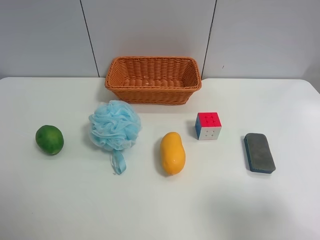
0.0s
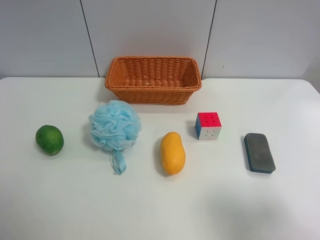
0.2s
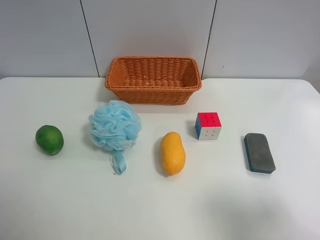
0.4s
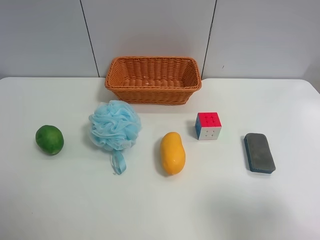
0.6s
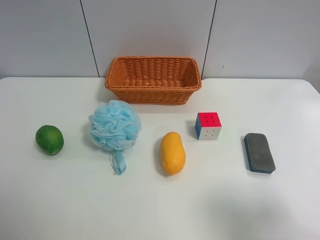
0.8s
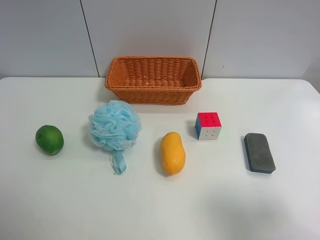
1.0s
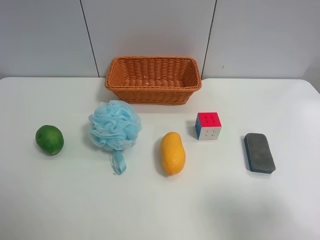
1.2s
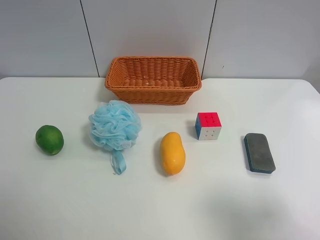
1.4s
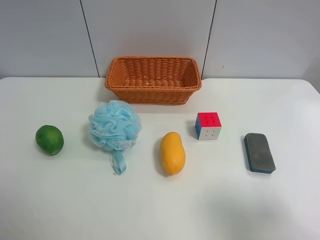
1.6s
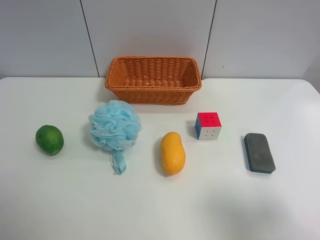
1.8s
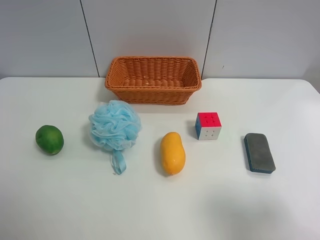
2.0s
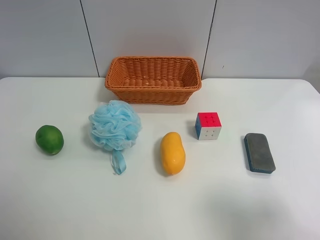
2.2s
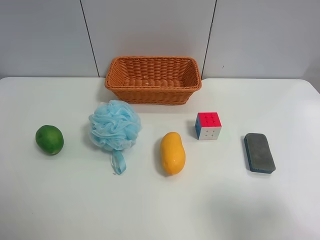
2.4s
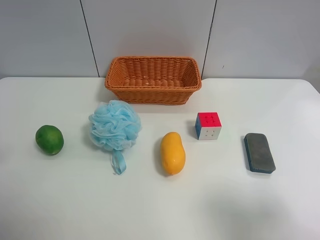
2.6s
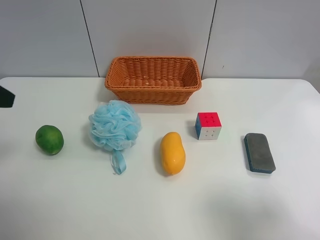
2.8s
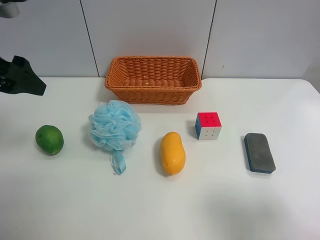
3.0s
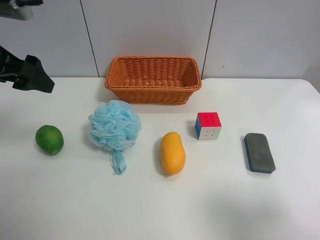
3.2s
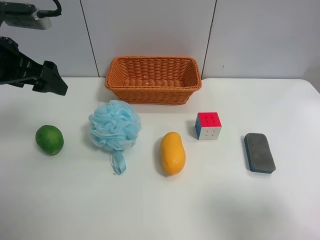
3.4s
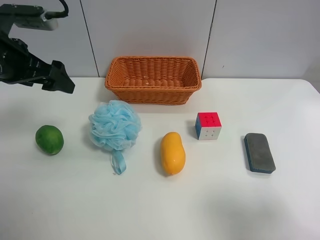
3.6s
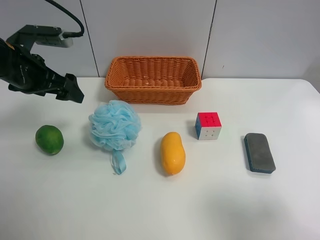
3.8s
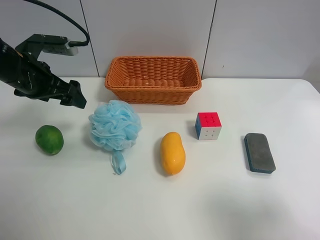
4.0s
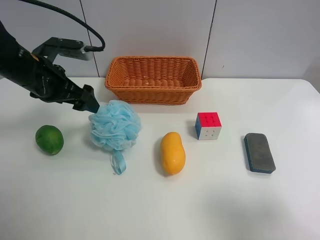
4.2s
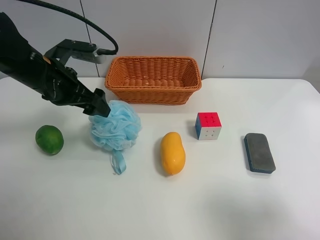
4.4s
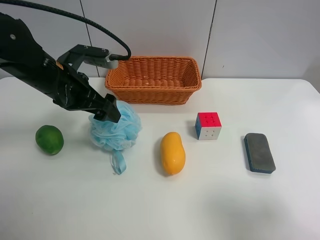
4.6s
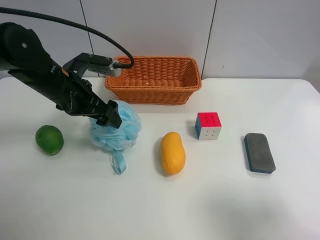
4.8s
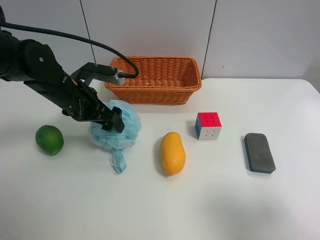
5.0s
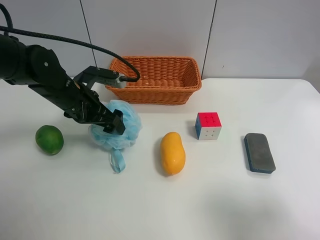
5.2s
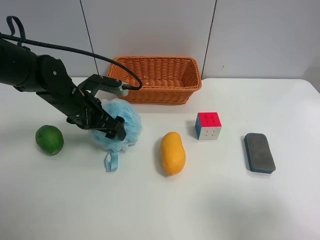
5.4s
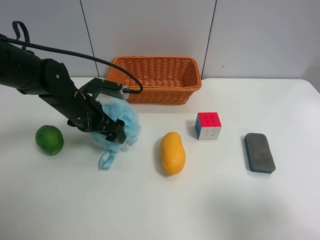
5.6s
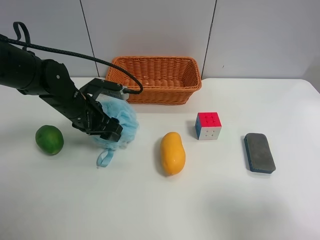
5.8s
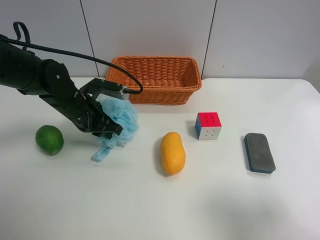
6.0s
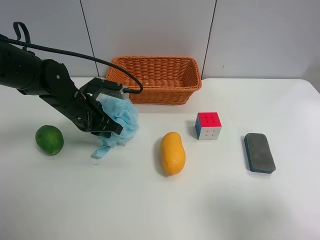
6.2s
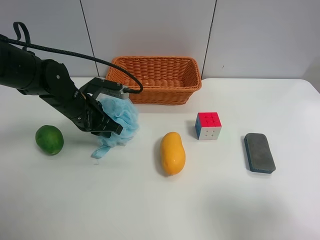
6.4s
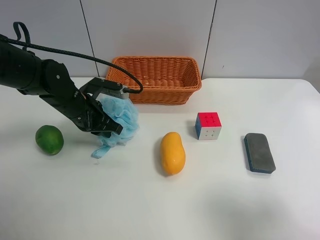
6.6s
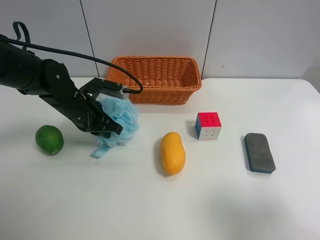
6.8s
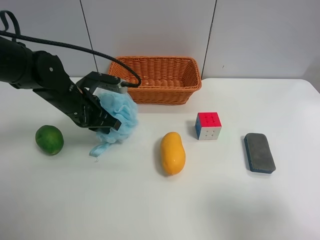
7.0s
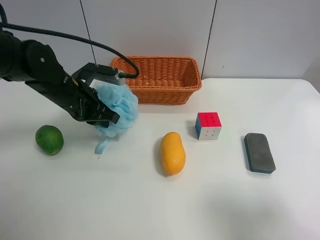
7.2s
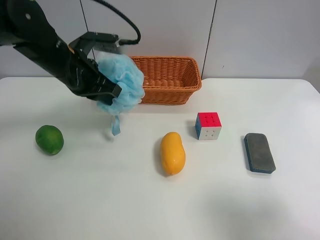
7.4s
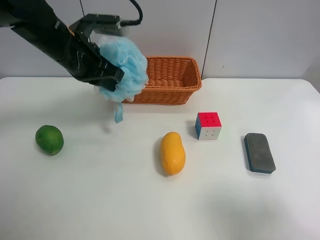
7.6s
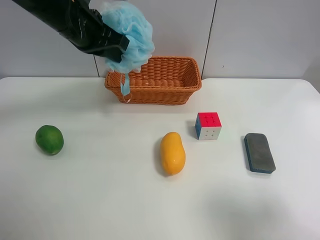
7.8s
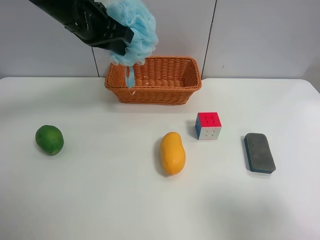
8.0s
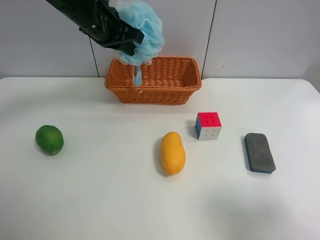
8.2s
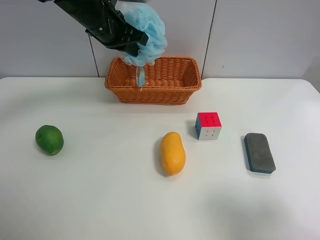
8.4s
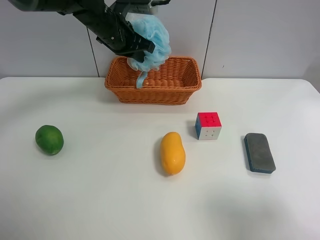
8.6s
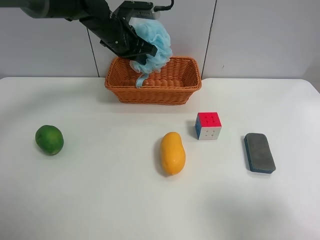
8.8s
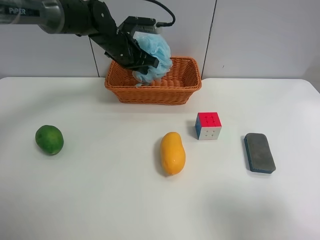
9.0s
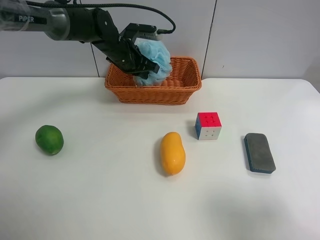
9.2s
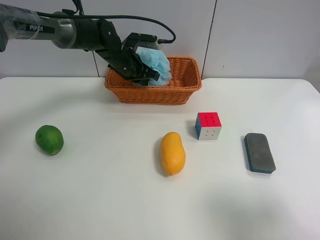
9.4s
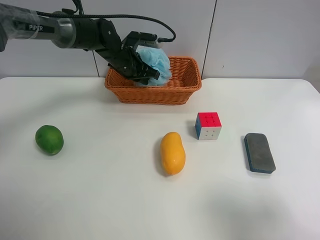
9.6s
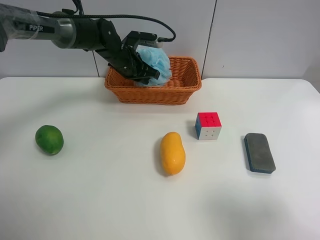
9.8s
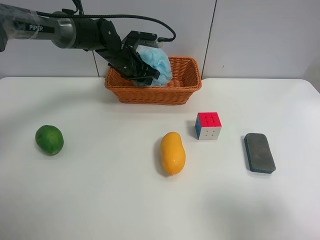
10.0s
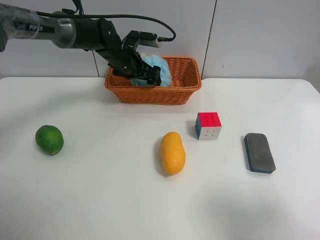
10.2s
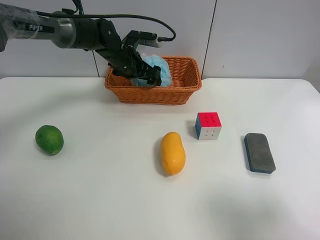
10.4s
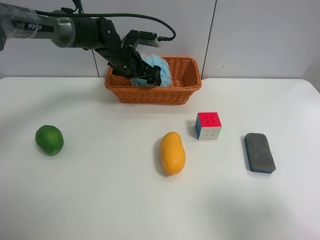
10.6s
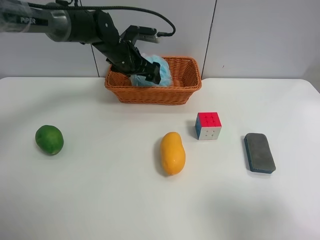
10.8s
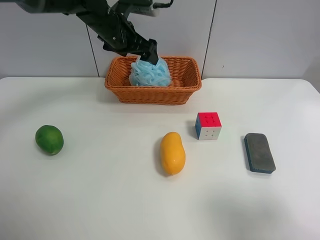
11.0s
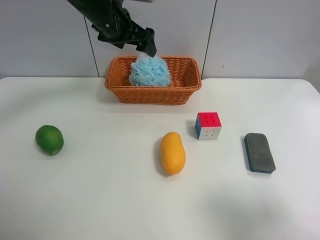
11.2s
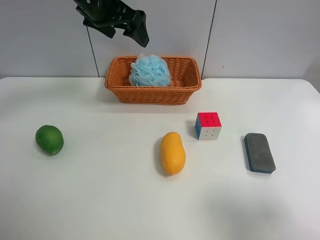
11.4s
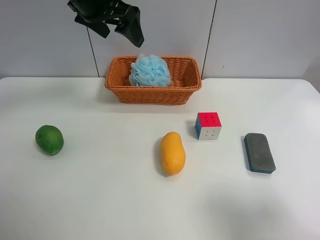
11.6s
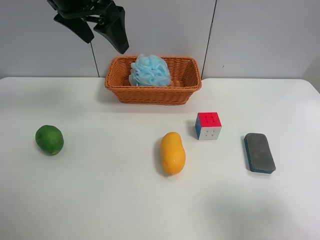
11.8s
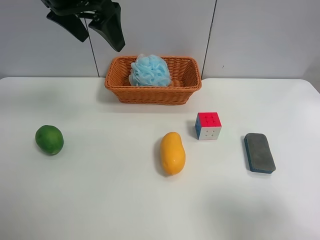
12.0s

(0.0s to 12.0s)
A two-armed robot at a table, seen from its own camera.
Task of the whole recording: use the left gripper to grab items from the table and place them in the basket.
Step, 0.0s - 5.6s: Grasp the Shower puff with the left gripper.
Step, 5.8s - 10.2s: Place the Shower puff into the basket with the left gripper.
0.0s - 1.6s: Neither gripper changes place.
1.6s - 3.0s: The left gripper goes about 25 cm forward.
3.0s - 4.4s: The left gripper goes about 15 cm downward, to the right and forward.
4.4s - 6.0s: The left gripper travels downward by some 10 cm, and closes.
6.0s - 7.6s: The left gripper heads upward, covering roughly 15 cm.
7.6s - 9.0s: The left gripper goes approximately 15 cm forward, downward and to the right.
9.0s - 10.4s: The left gripper opens up.
10.4s - 12.0s: The left gripper travels upward and backward by about 25 cm.

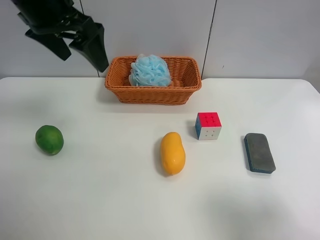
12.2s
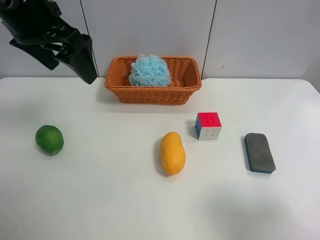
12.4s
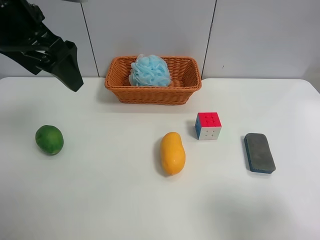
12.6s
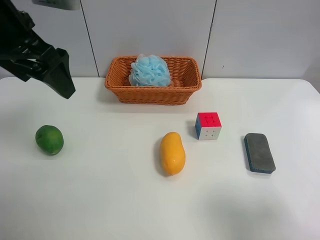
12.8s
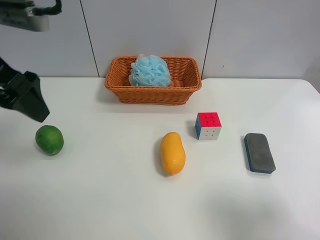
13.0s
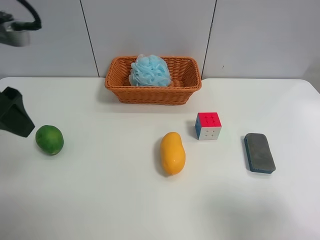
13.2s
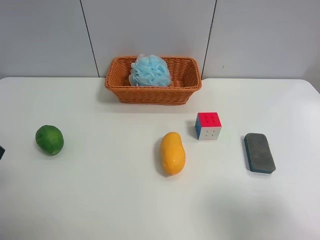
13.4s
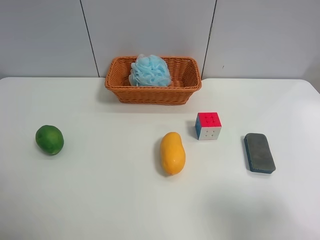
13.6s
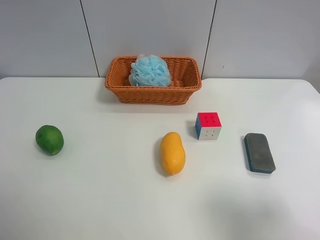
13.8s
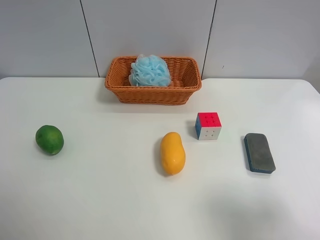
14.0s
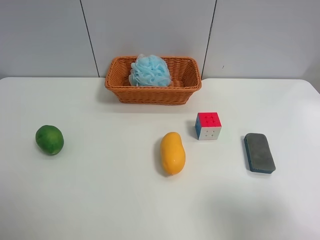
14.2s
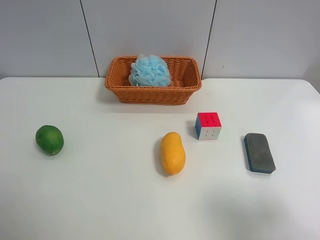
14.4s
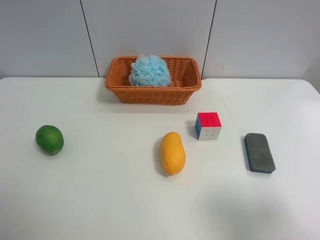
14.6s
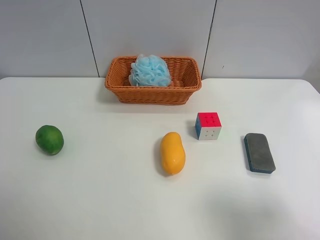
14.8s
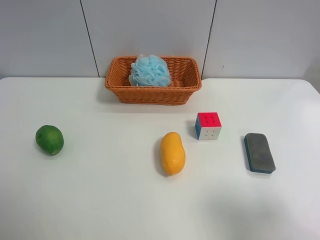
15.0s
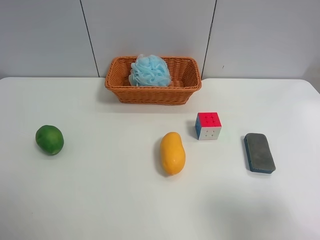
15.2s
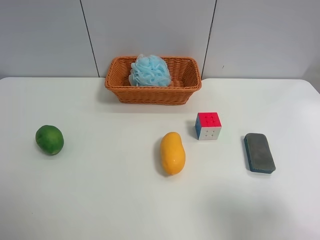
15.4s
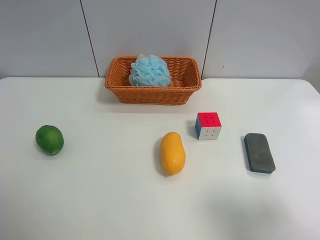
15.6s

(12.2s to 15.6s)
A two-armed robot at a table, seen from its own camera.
Task of the whole recording: use the left gripper to grab items from the table and place them in the basket.
12.2s - 13.8s: The left gripper travels backward and to the left by roughly 30 cm.

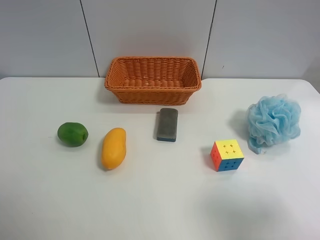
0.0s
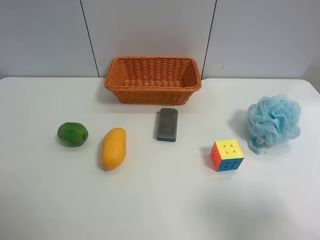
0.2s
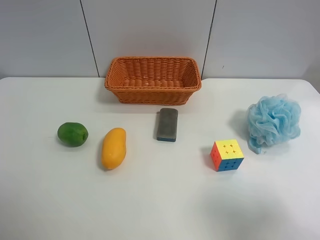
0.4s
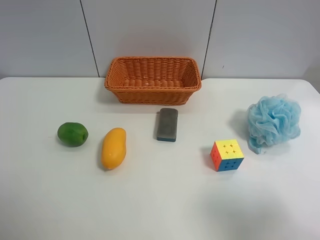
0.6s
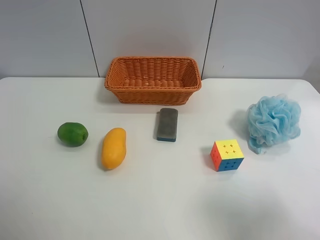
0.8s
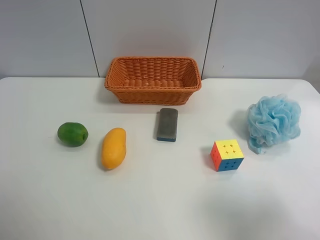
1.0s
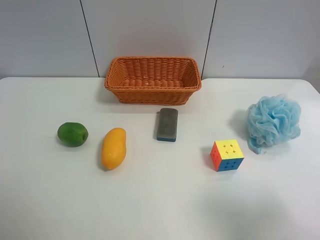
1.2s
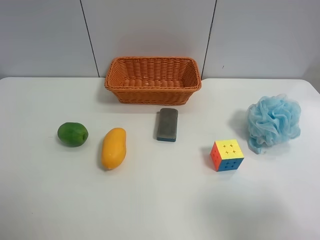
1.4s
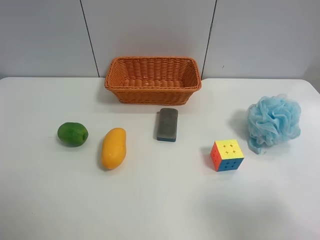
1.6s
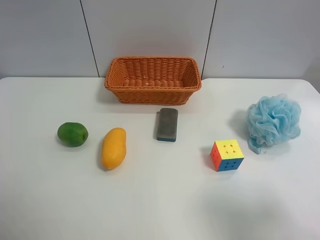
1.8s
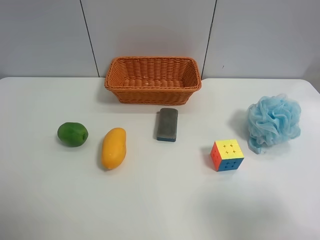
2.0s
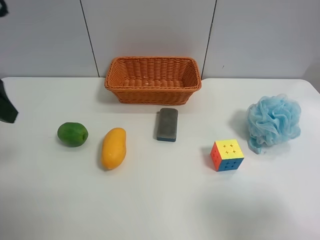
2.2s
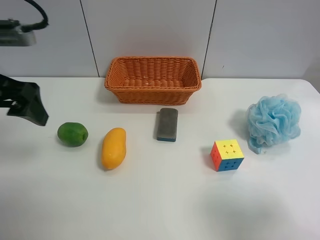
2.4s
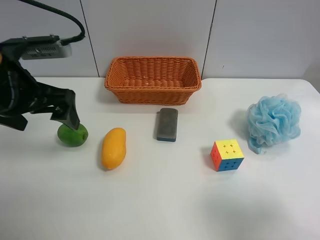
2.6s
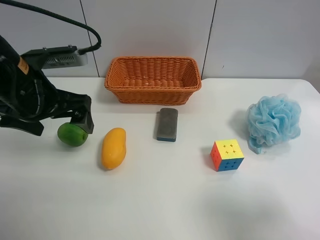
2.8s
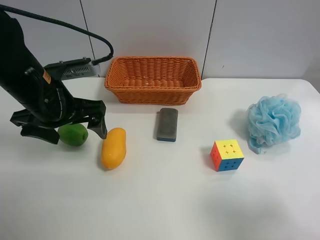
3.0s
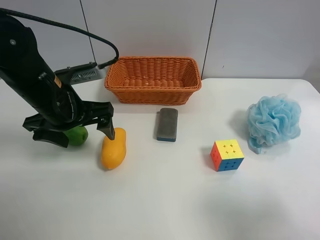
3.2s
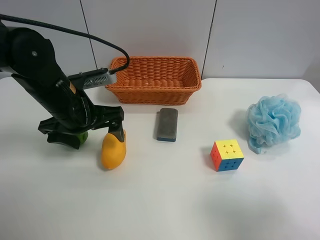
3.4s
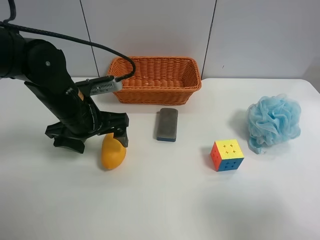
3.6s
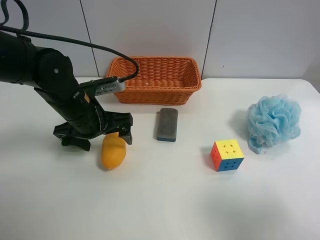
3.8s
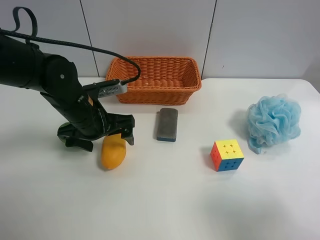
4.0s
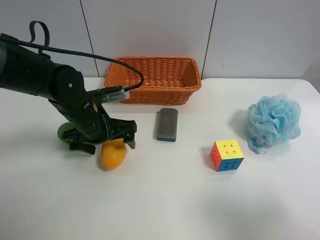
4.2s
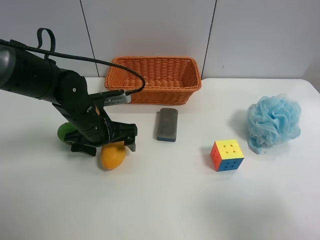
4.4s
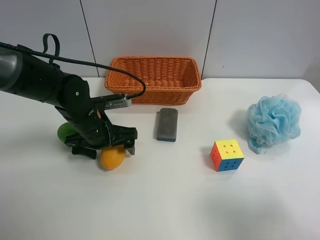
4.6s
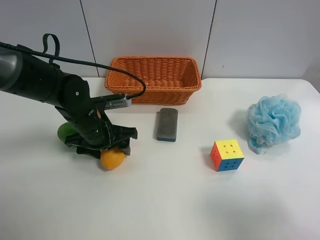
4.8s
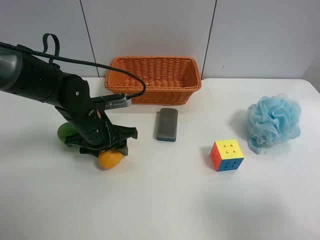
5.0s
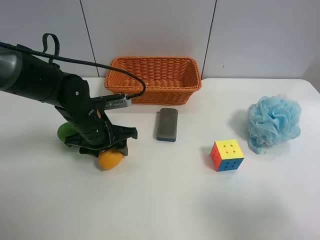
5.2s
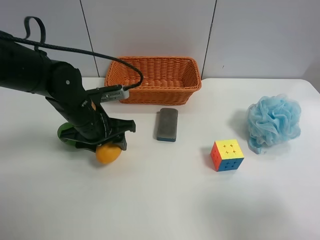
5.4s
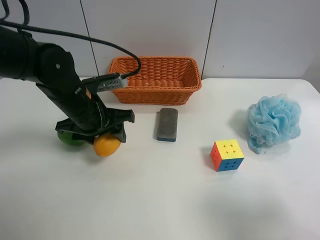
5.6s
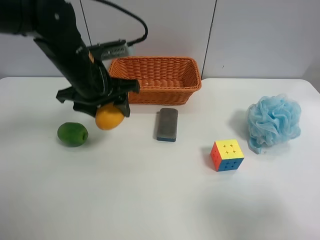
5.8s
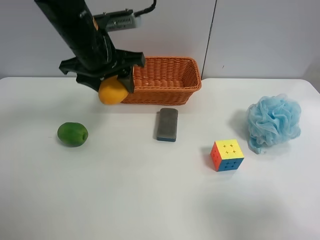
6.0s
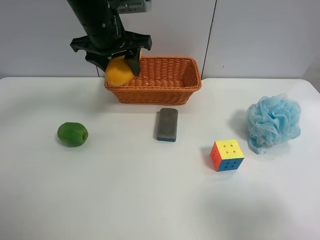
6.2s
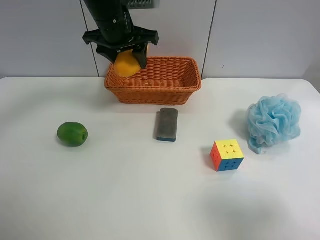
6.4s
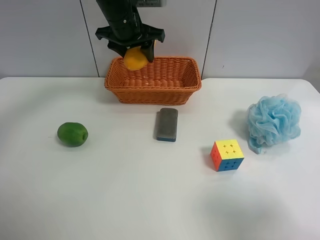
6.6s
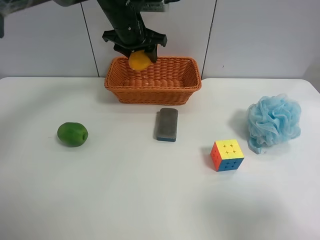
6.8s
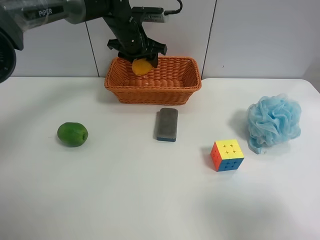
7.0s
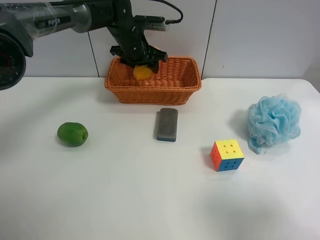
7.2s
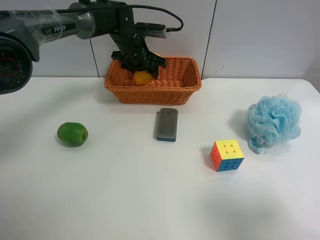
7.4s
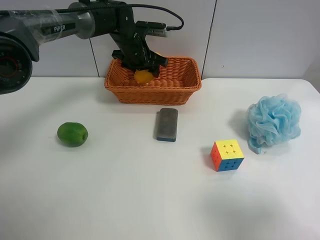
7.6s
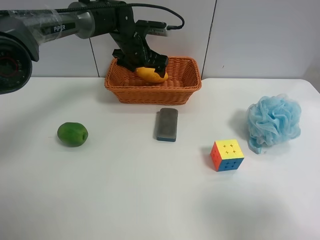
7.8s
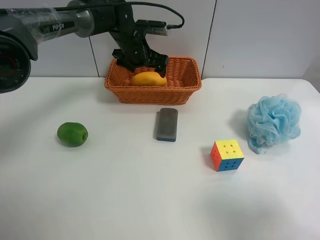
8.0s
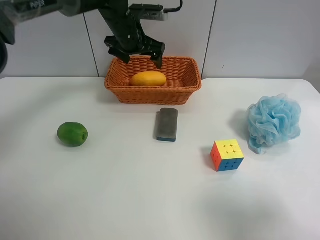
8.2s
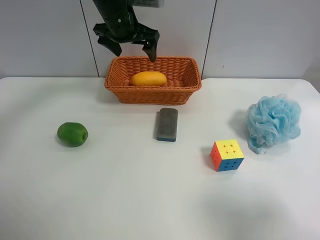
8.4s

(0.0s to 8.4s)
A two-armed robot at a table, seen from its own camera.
Task of the whole recording: use the left gripper to grab items from the table and place them in the basket.
Step, 5.2s - 8.0s: Place the mango into the basket with the left gripper.
1.4s - 2.8s: The left gripper moves forward and to the right, about 25 cm.
2.8s - 4.2s: The left gripper heads downward and to the right, covering roughly 10 cm.
4.2s - 5.6s: The left gripper closes.
5.6s - 7.0s: The left gripper moves forward, some 20 cm.
7.0s - 8.4s: The left gripper heads upward, covering about 5 cm, and opens.
